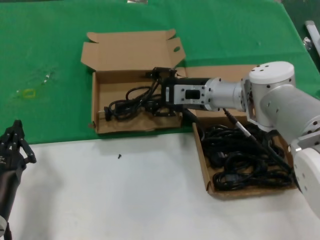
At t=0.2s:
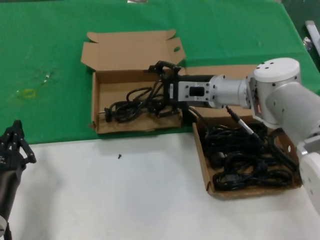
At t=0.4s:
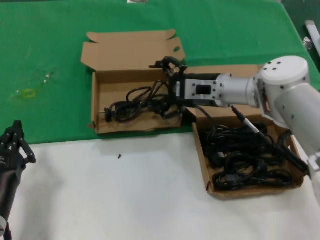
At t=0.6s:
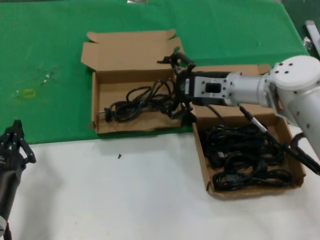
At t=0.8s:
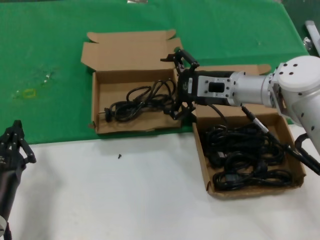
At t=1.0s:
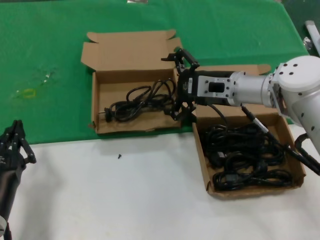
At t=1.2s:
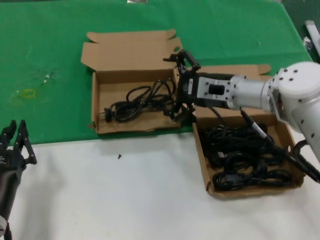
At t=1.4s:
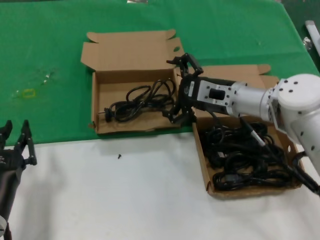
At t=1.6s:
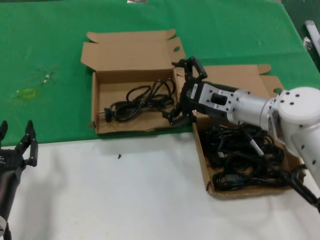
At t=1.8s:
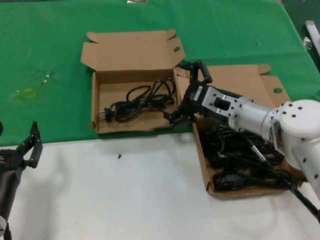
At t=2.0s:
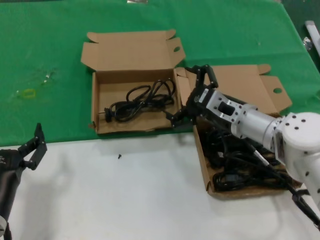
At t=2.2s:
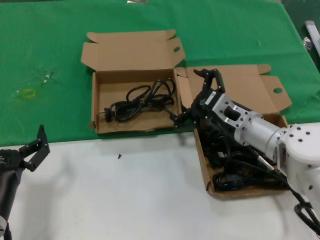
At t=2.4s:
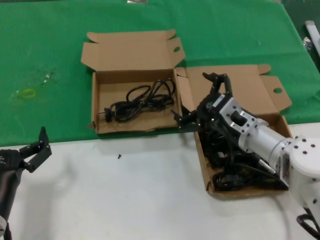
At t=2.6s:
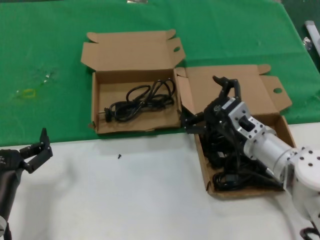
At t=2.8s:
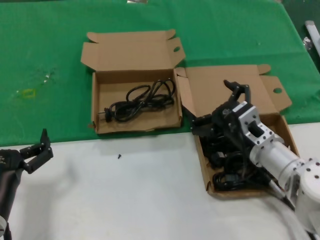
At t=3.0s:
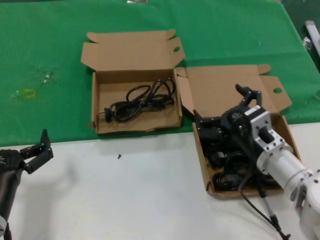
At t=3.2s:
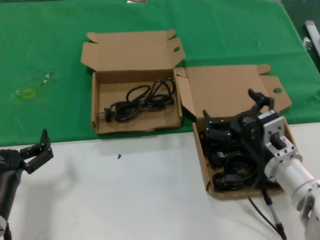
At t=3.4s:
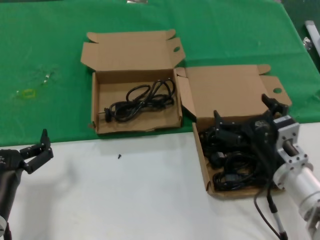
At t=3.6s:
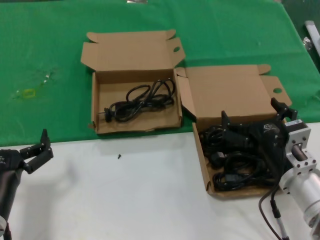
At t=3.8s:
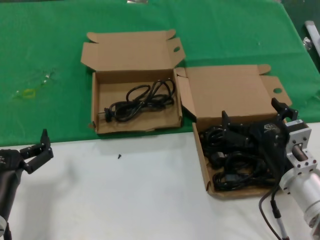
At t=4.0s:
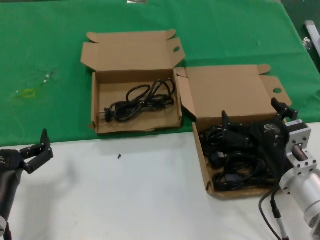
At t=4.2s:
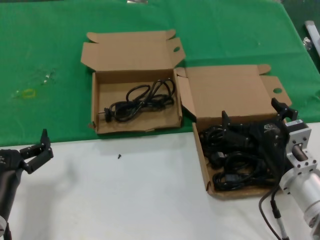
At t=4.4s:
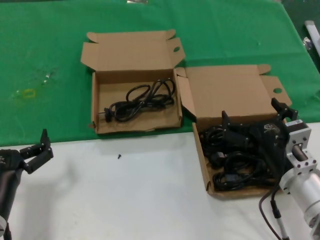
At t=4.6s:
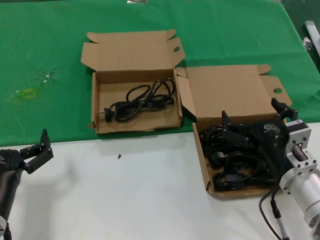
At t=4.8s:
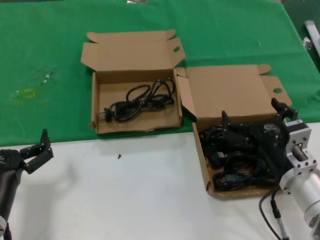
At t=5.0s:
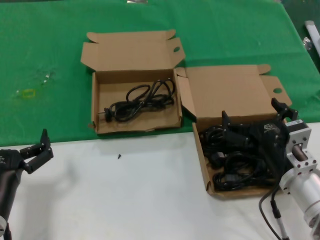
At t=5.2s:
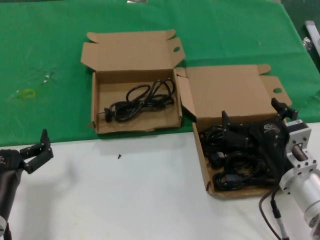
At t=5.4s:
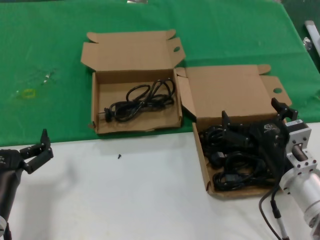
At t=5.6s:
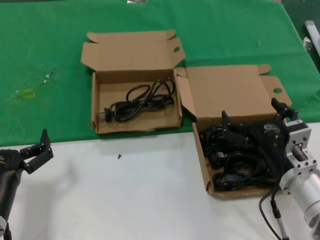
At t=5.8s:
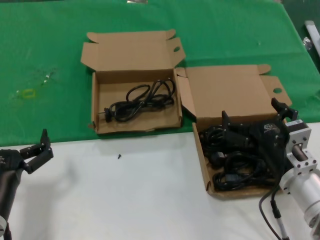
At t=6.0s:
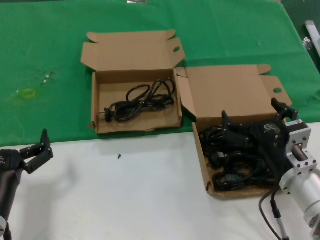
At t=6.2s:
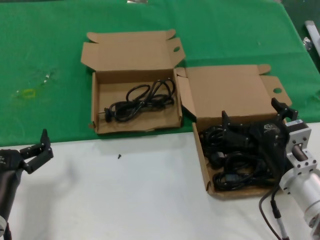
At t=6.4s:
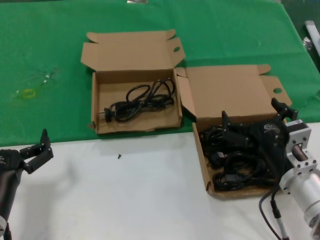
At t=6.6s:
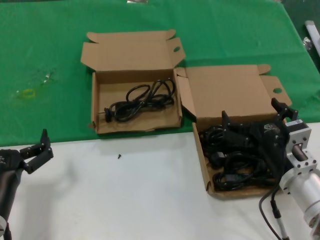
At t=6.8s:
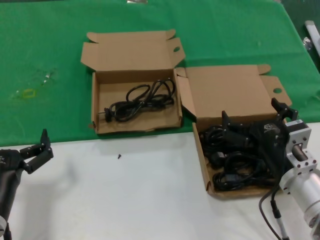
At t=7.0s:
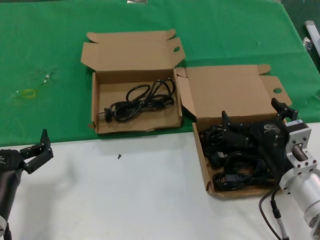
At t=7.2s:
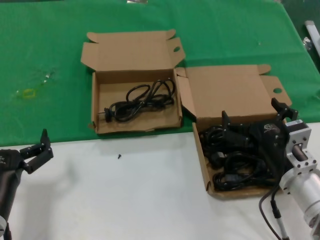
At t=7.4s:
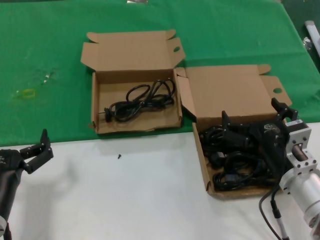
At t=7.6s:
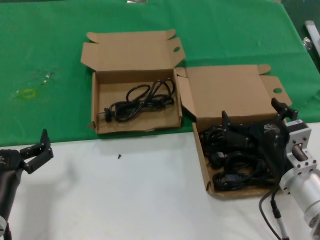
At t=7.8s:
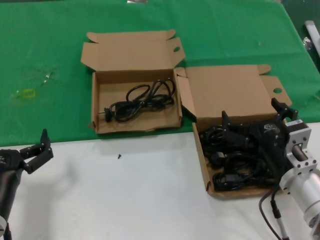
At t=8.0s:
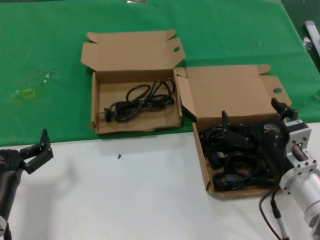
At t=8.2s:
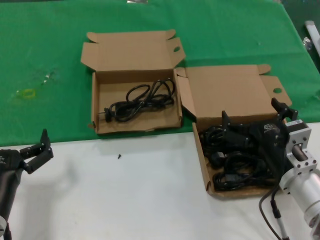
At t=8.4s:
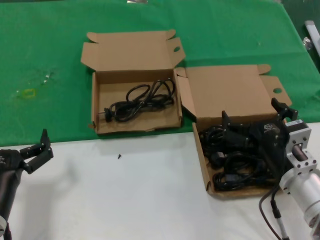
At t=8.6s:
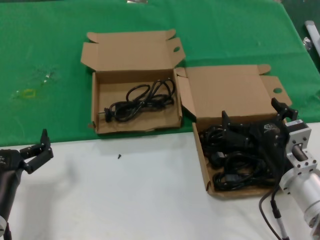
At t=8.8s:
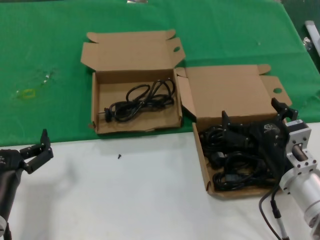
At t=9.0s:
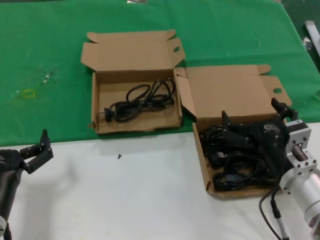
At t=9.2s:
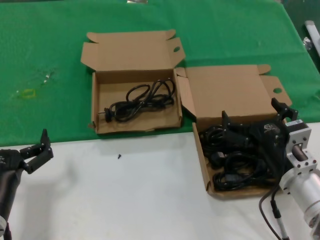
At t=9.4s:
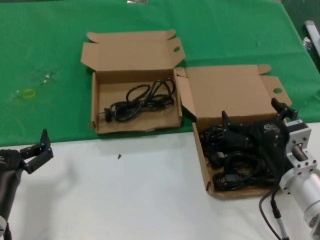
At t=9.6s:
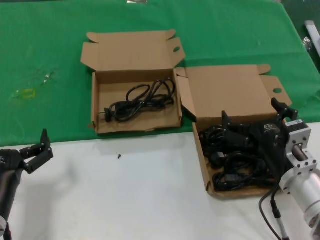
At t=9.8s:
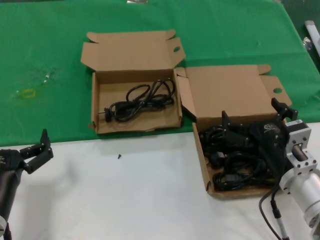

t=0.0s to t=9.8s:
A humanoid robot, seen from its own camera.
Task of the whole recording: take the parts from the box containing them and put them into an empty box.
t=0.0s to t=1.4s: The right hand shifts by about 5 cm.
t=1.4s to t=2.8s: The right hand is displaced backward and downward by about 15 cm.
t=2.8s to t=4.2s: The right hand shifts about 10 cm backward.
t=4.2s to t=9.8s: Neither hand changes place.

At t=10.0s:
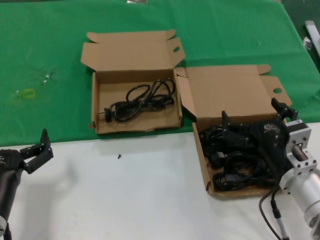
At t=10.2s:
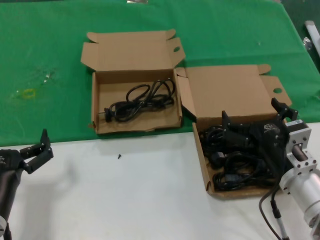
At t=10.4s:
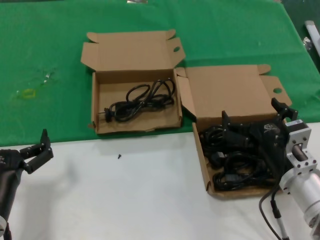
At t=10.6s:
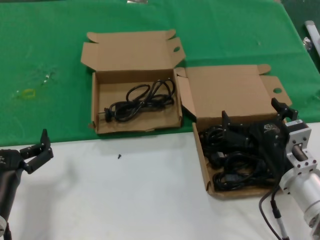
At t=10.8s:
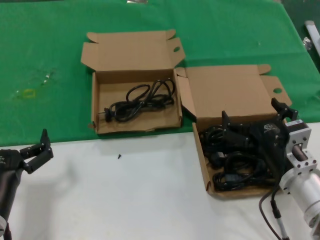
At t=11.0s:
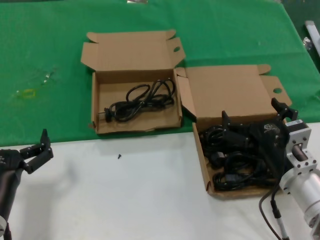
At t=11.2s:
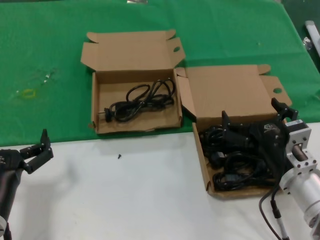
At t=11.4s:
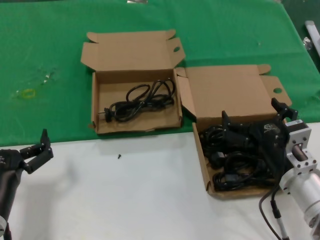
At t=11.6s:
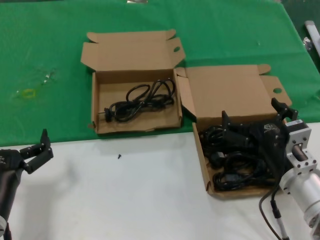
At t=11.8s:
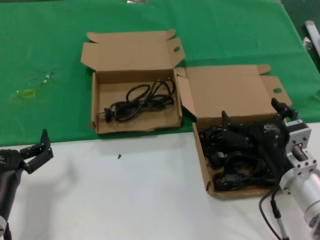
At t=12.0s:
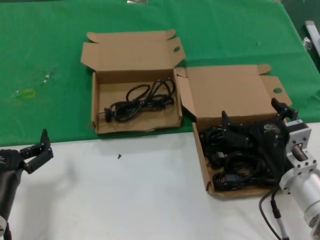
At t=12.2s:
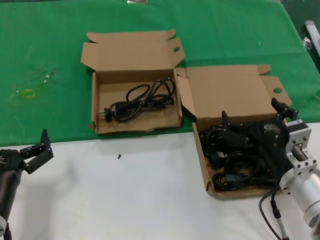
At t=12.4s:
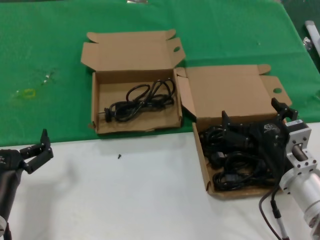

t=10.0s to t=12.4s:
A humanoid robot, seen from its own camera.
Task of the whole recording: take the parts from the box containing them and put them into an empty box.
t=10.0s to t=12.4s: The two hands keep their place.
